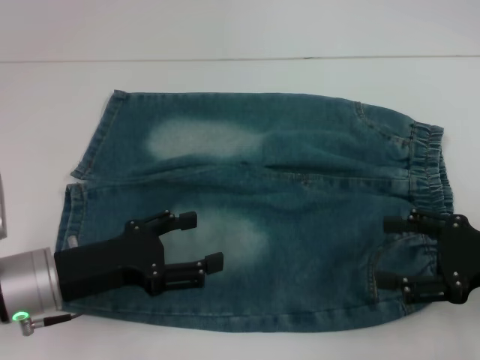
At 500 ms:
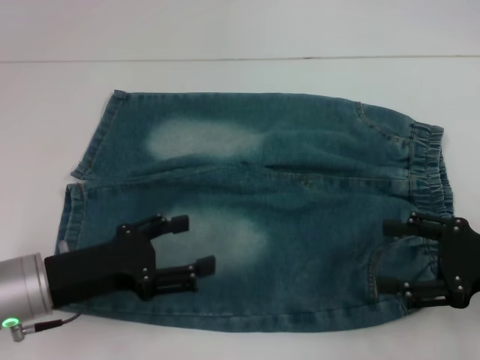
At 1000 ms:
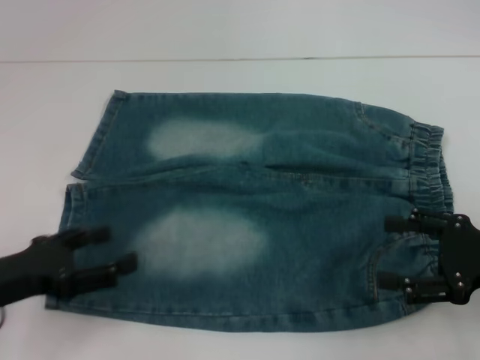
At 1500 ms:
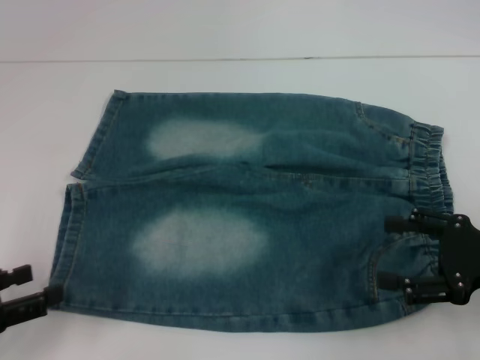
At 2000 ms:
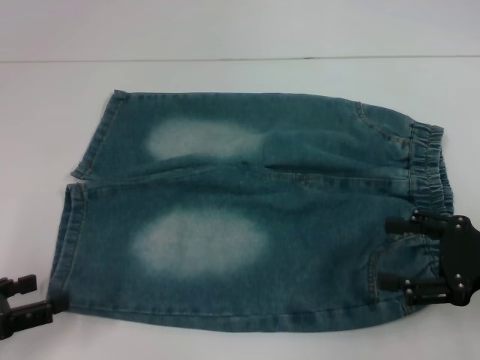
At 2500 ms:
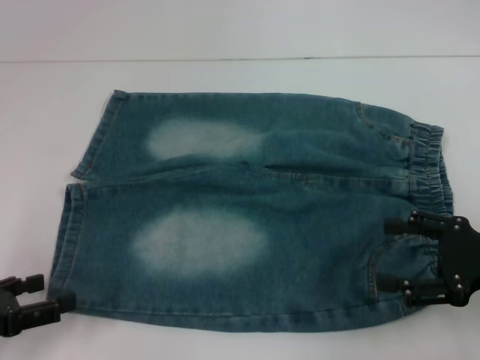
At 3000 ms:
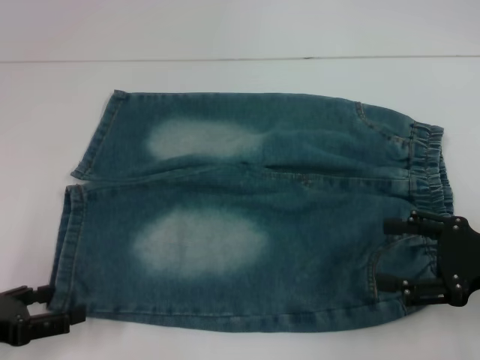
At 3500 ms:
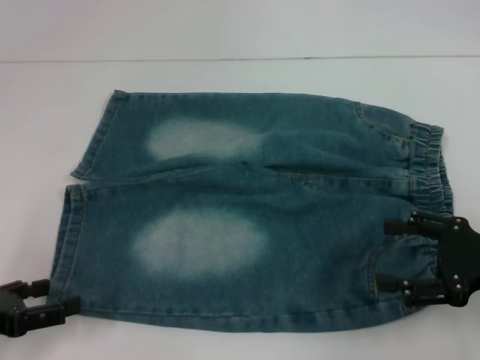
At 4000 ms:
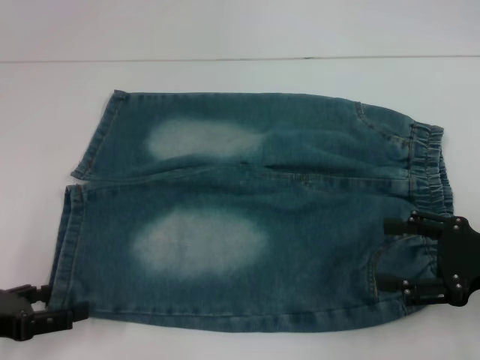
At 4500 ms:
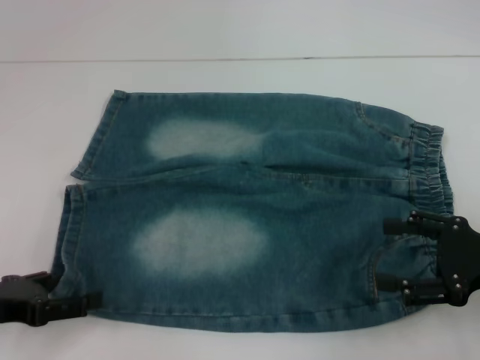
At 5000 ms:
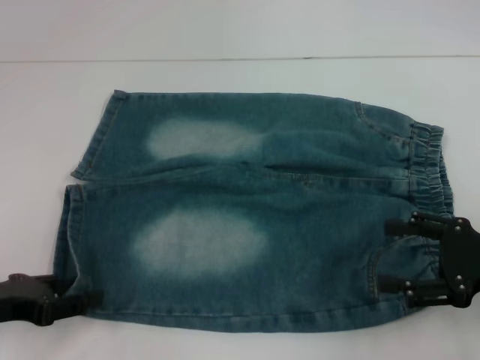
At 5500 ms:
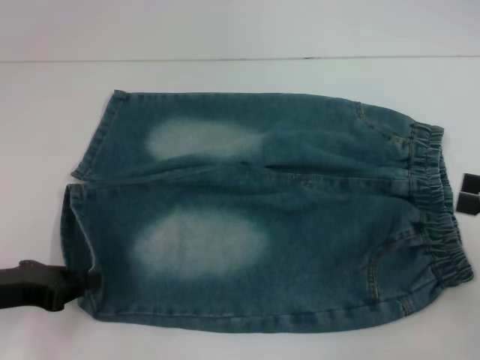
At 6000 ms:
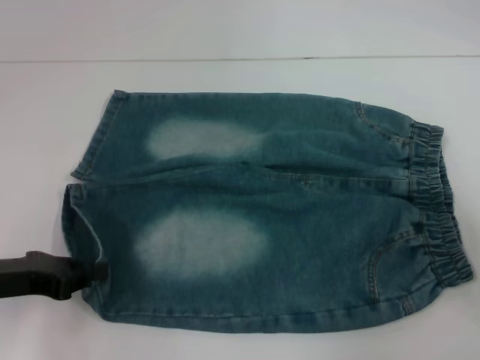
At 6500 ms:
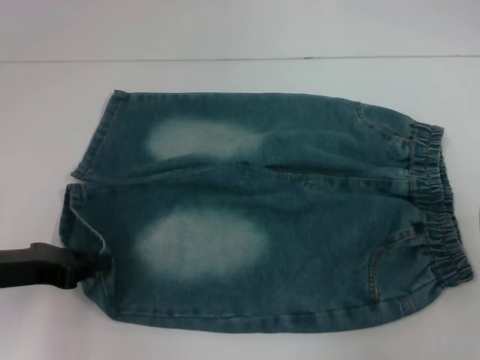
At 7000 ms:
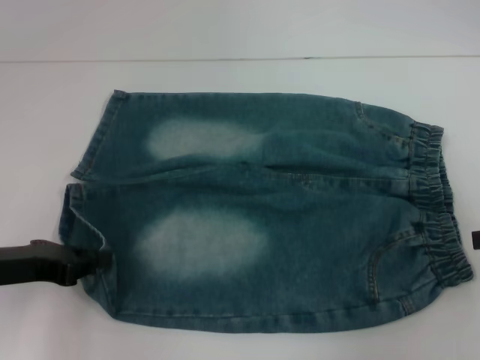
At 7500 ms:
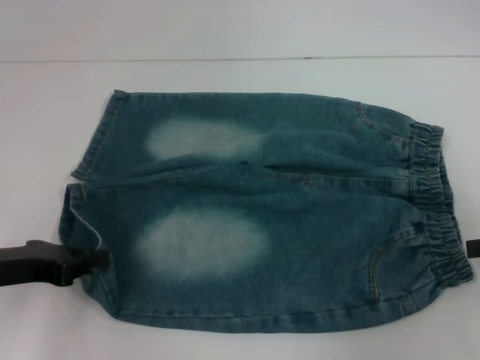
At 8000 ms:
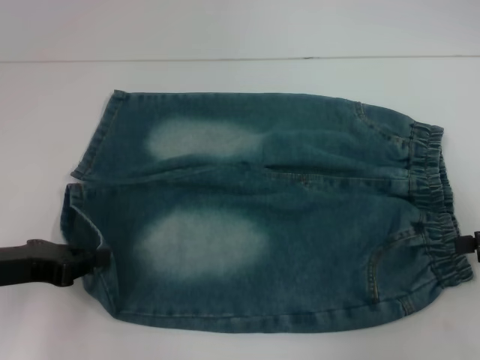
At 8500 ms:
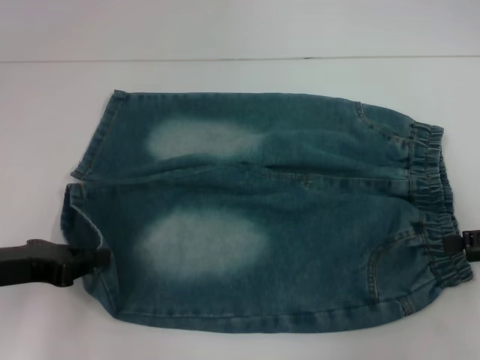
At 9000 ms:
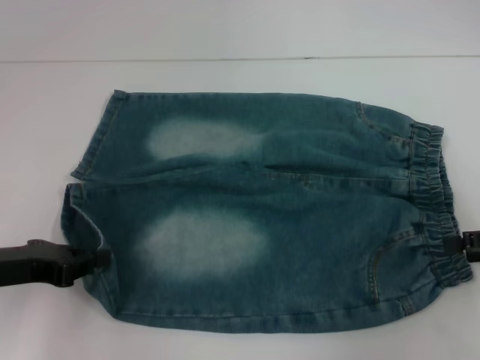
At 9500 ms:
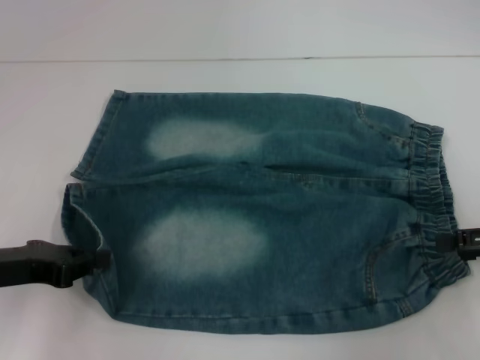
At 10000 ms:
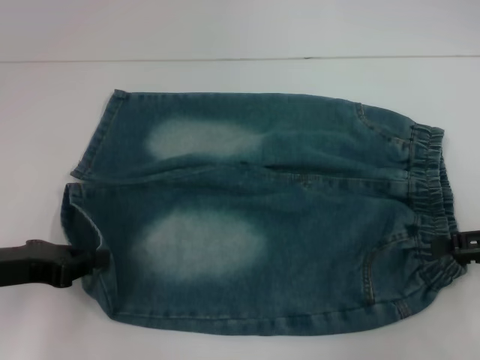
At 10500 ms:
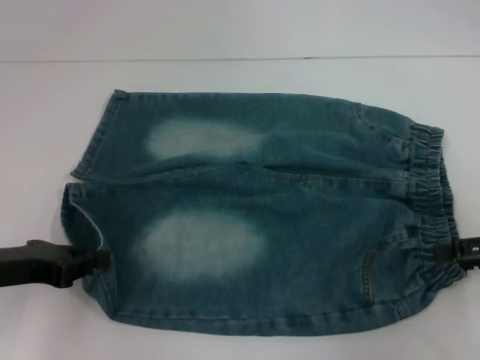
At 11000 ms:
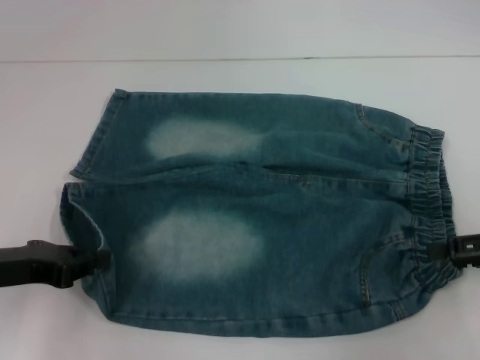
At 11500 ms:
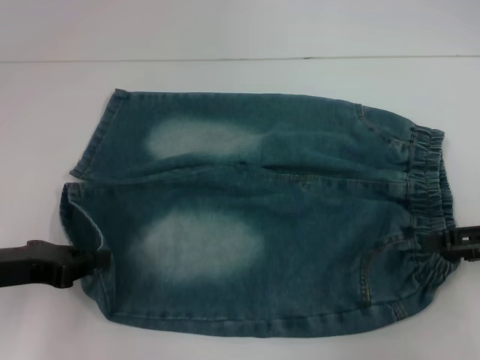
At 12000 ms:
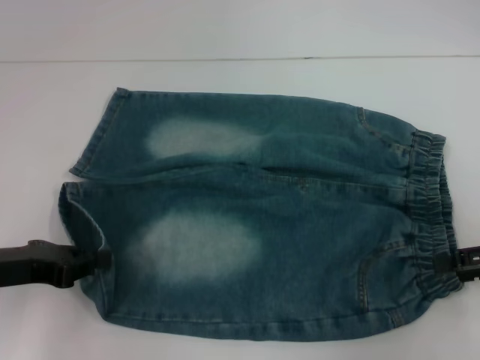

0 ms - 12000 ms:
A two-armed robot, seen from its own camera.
Step, 0 ms - 5500 ms: Grab the lower left pant leg with your left hand.
0 ms - 2000 ms: The left gripper moves to the left and backward, roughly 15 cm.
2000 ms - 4000 ms: There are only small adjustments of the grippers.
4000 ms - 6000 ms: The right gripper heads to the right, covering about 10 cm. Meanwhile the left gripper ends up approximately 5 cm from where it was, and closes its fingers.
6000 ms - 8000 ms: The grippers stay close to where they were, moving slightly.
8000 ms - 10000 ms: The grippers make only small movements.
10000 ms - 12000 ms: Neither gripper changes place.

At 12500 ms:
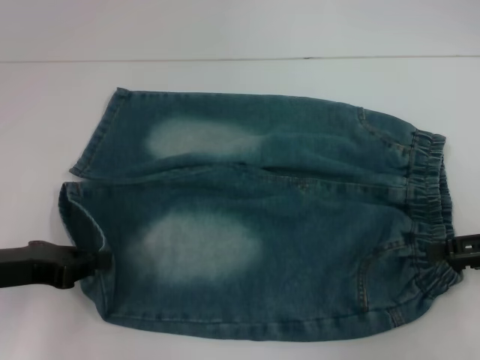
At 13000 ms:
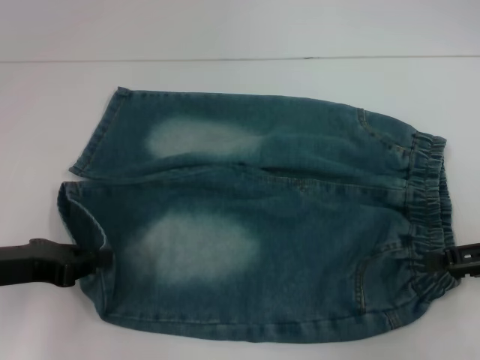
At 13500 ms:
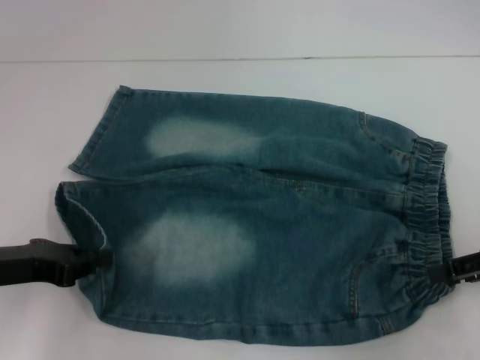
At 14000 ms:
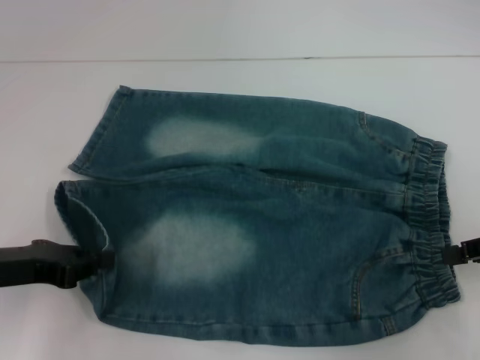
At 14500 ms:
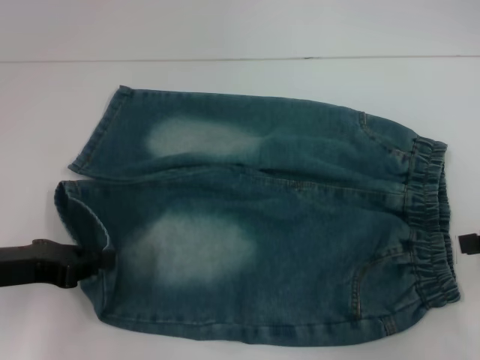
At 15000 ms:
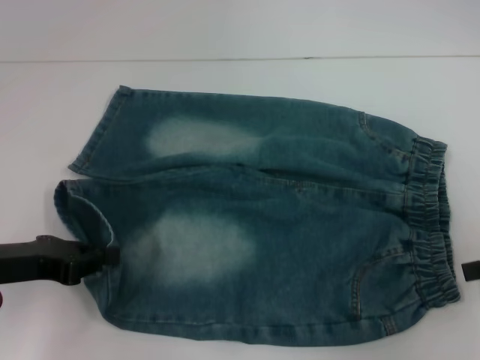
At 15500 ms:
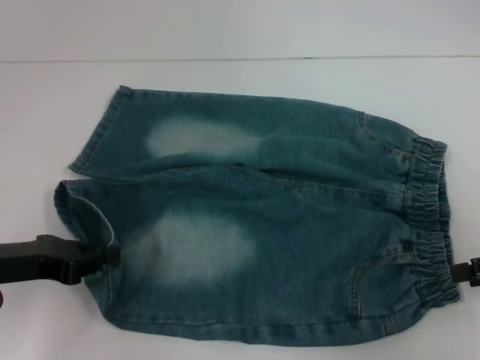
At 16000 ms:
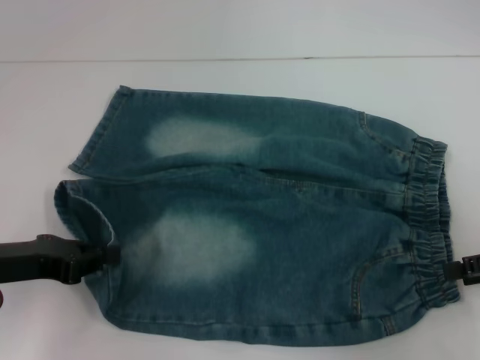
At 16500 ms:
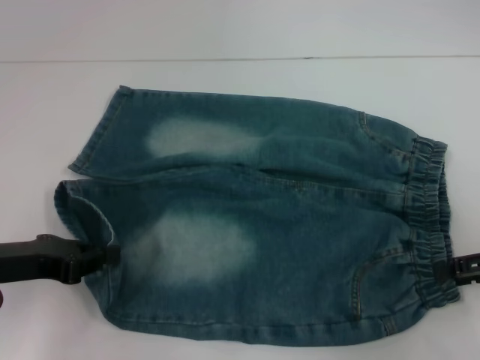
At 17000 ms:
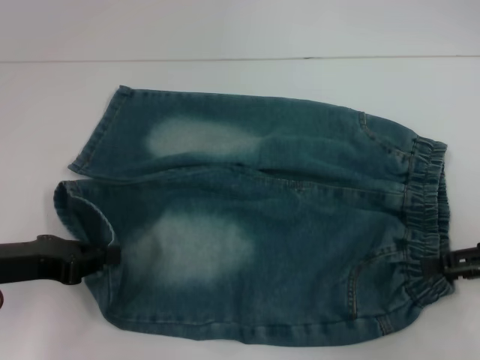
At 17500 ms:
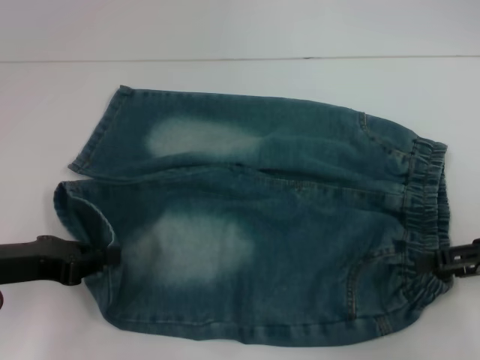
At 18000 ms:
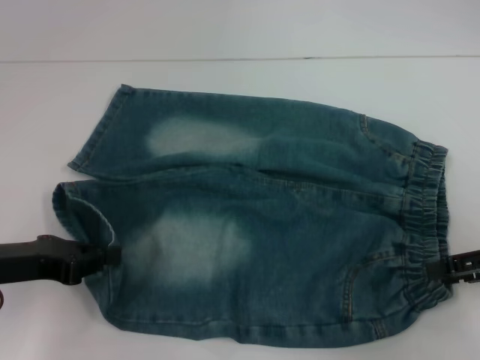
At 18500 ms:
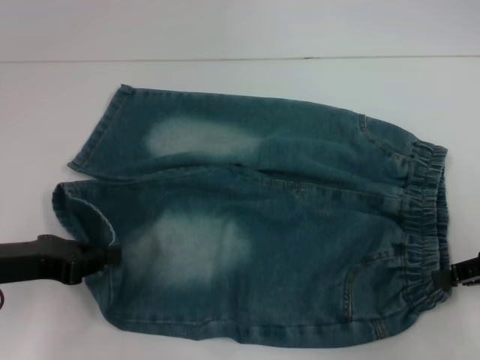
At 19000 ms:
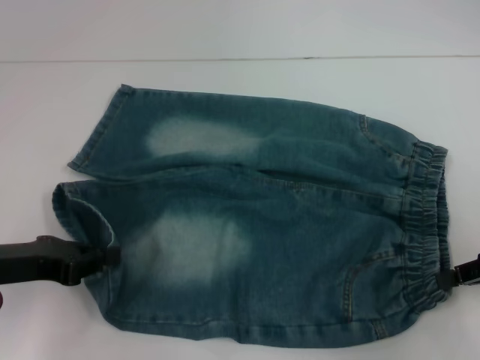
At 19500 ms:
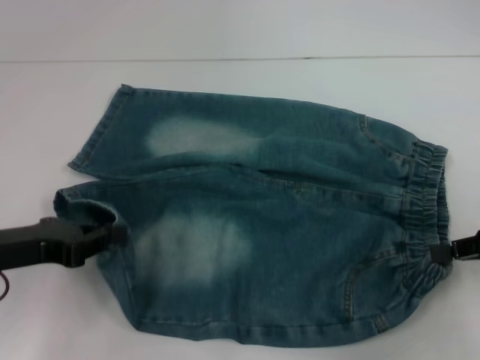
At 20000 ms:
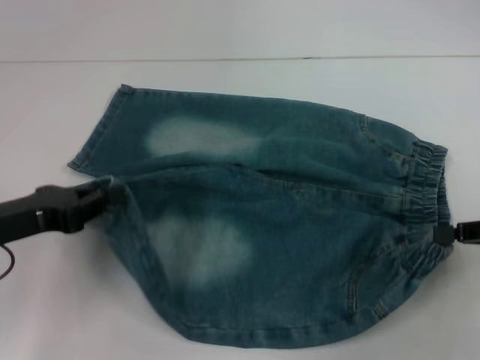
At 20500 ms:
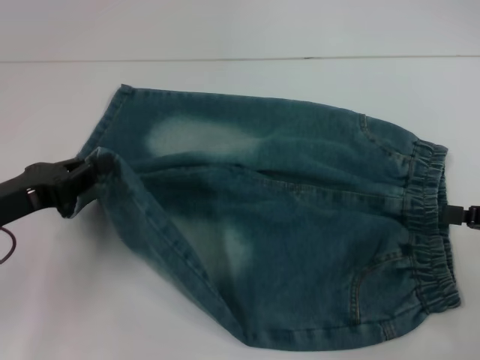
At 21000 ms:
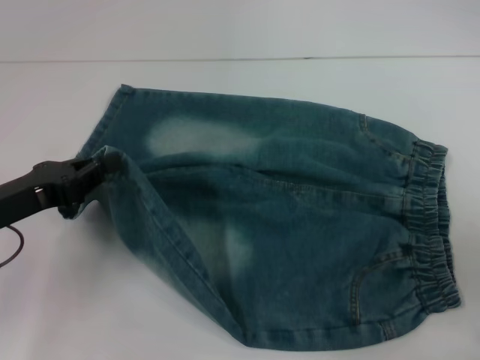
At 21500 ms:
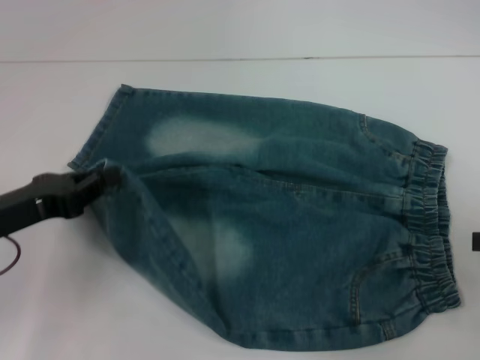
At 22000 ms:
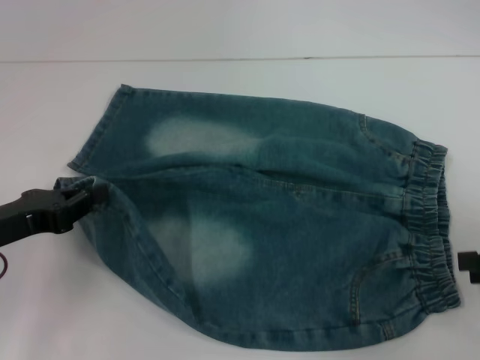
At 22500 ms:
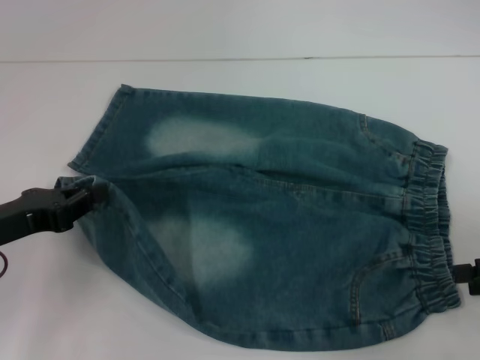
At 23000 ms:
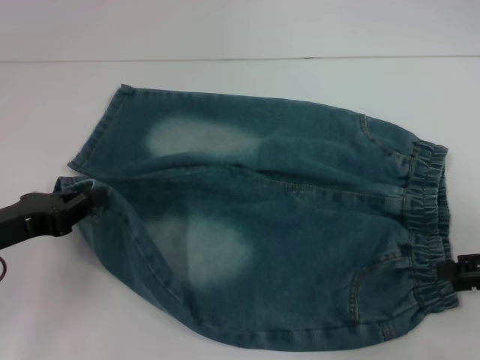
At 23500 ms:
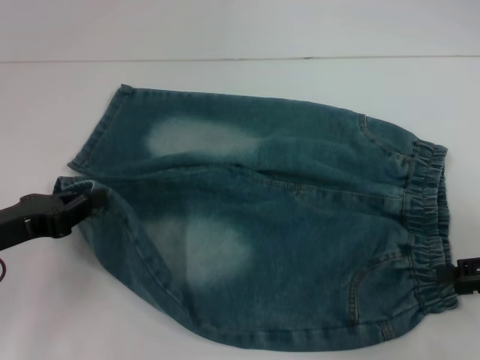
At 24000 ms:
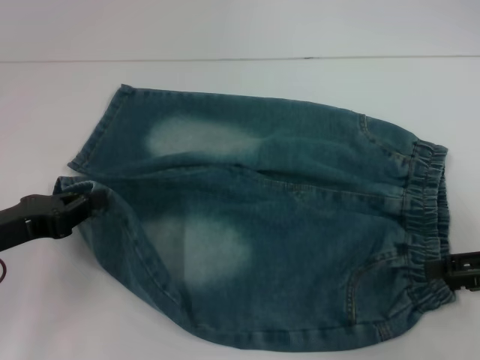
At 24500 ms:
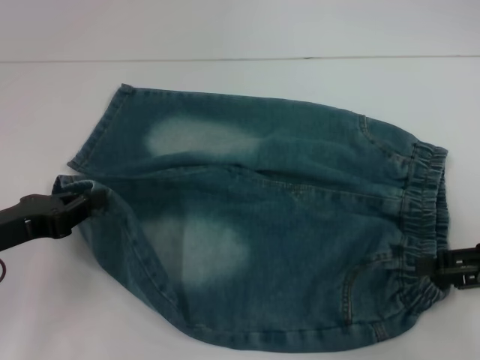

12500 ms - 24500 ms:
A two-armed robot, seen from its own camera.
12500 ms - 14500 ms: The right gripper closes up.
14500 ms - 16500 ms: The right gripper opens.
16500 ms - 18500 ms: The right gripper closes up.
20500 ms - 22500 ms: The right gripper opens up.
22500 ms - 24500 ms: The grippers make only small movements.

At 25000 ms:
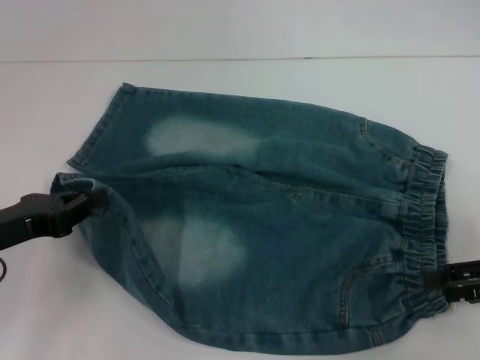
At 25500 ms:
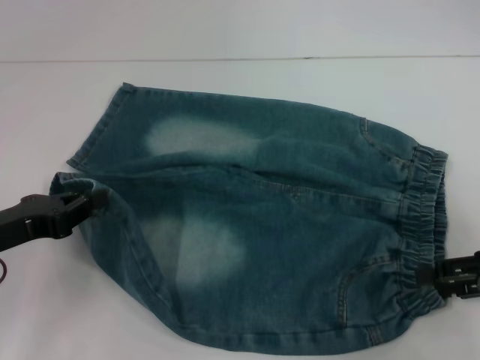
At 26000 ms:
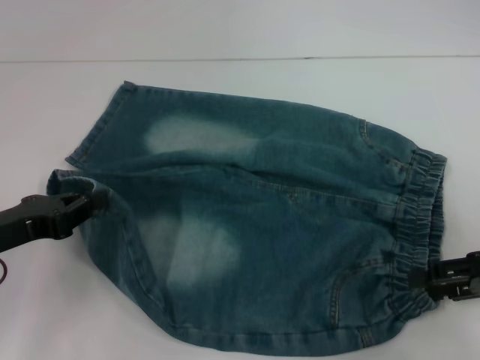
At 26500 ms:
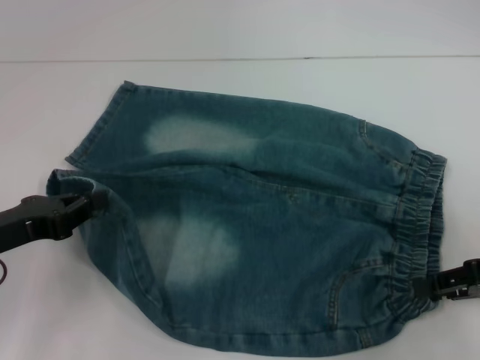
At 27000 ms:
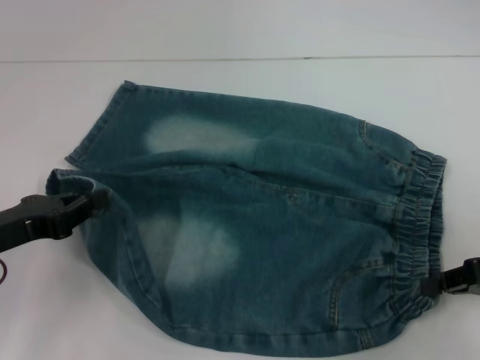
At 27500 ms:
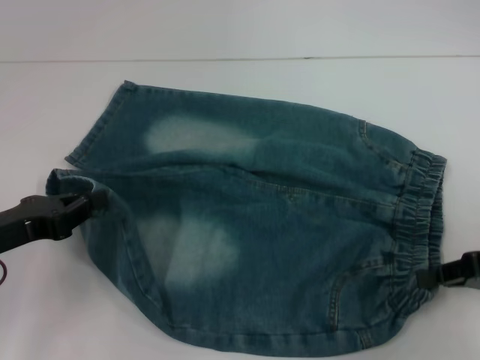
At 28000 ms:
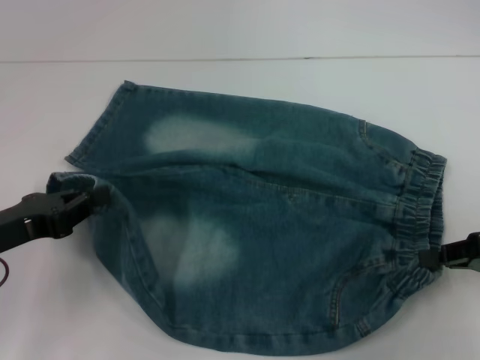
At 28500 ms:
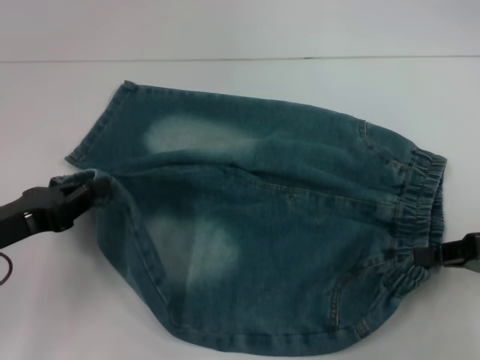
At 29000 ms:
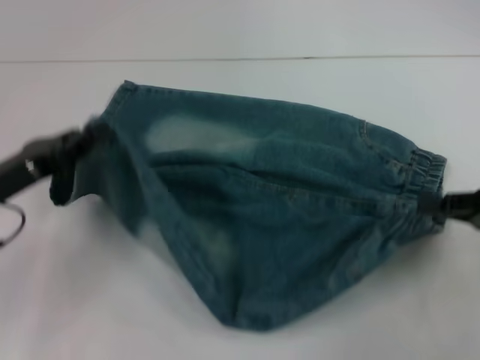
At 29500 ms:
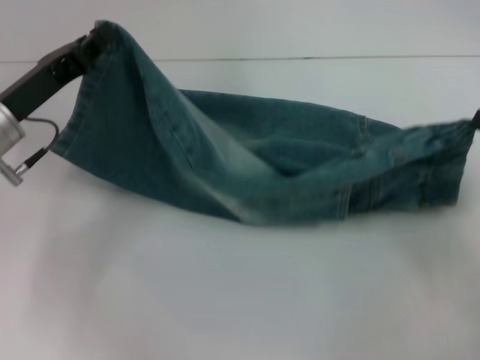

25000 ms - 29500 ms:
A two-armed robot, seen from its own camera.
Step, 25000 ms - 27000 ms: Hold the lower right waistband with your right hand.
25000 ms - 27000 ms: The right gripper closes its fingers.
27000 ms - 29500 ms: The left gripper is displaced forward by some 10 cm; the right gripper moves some 5 cm.
